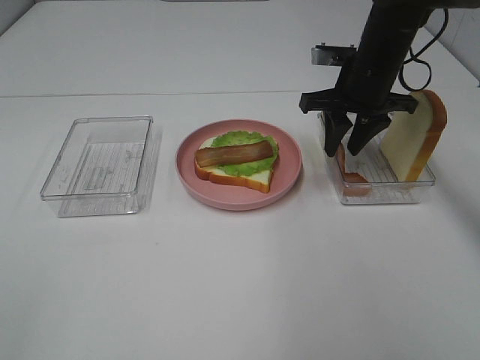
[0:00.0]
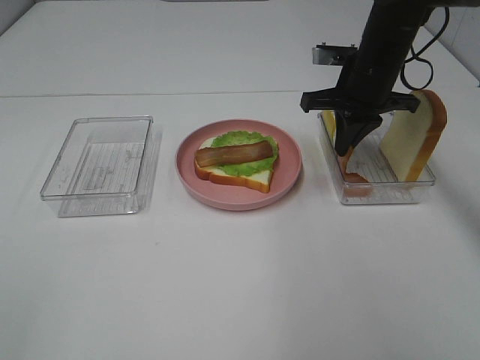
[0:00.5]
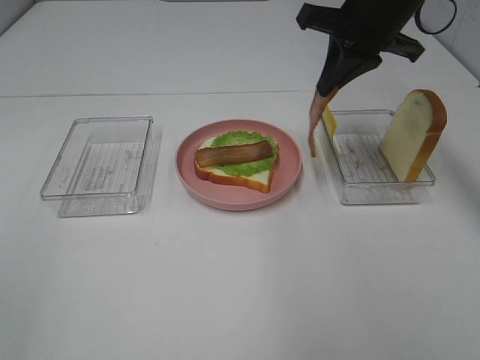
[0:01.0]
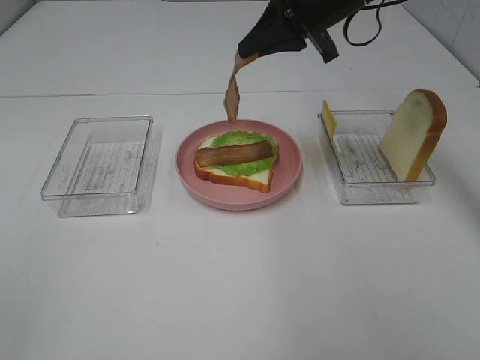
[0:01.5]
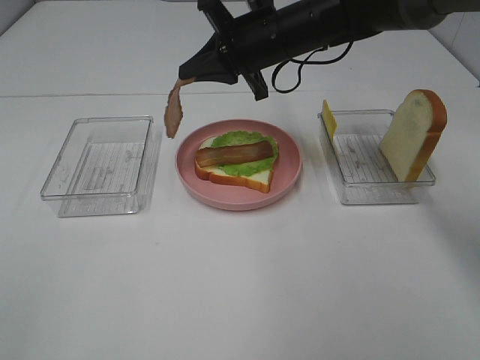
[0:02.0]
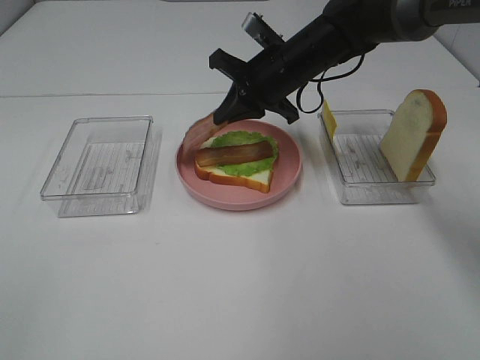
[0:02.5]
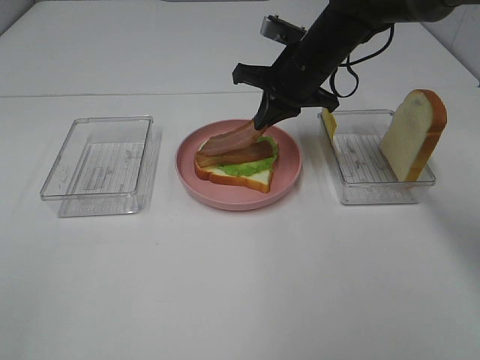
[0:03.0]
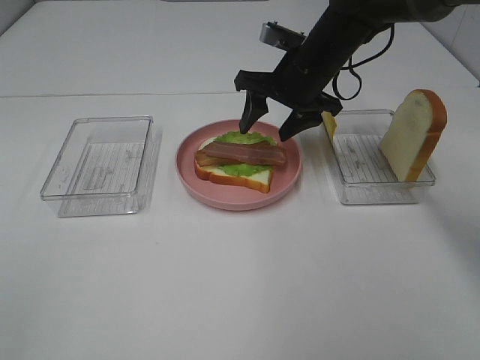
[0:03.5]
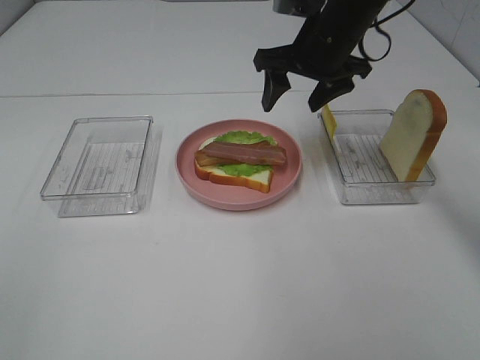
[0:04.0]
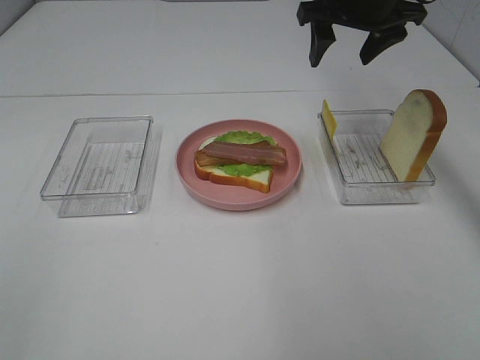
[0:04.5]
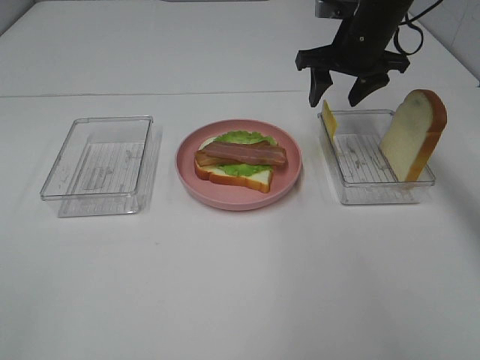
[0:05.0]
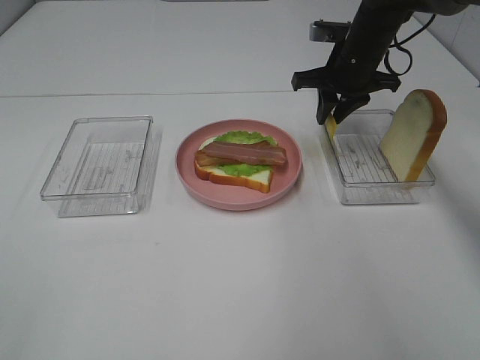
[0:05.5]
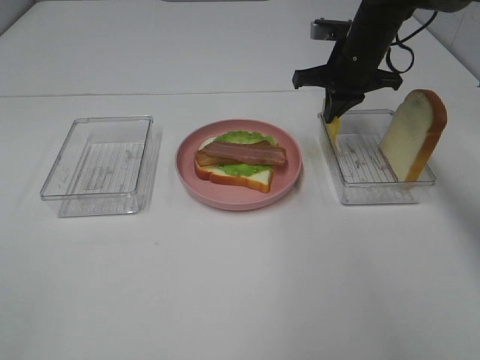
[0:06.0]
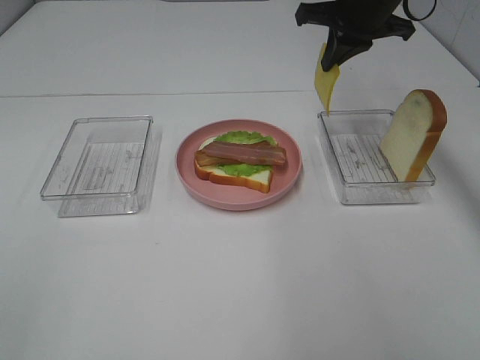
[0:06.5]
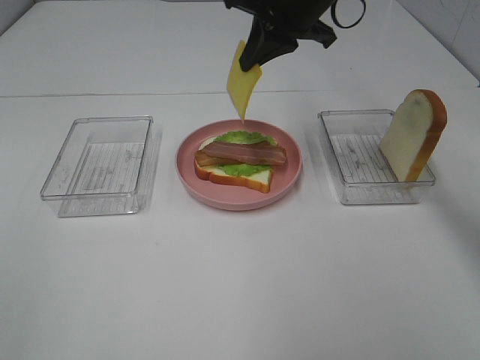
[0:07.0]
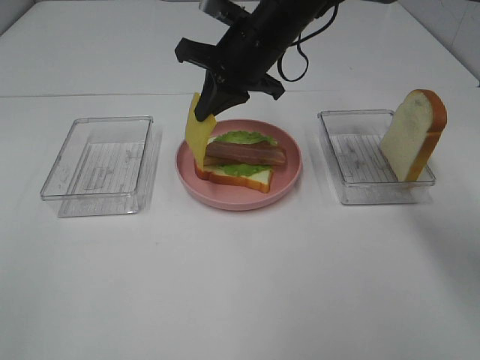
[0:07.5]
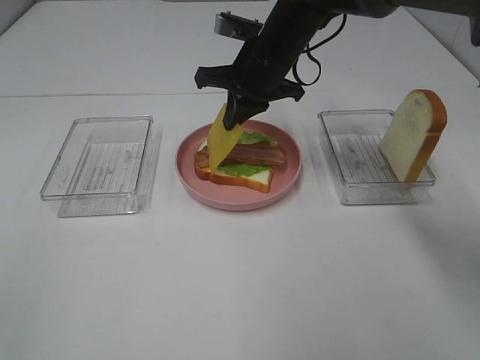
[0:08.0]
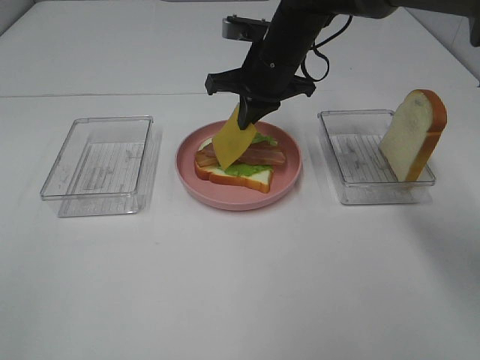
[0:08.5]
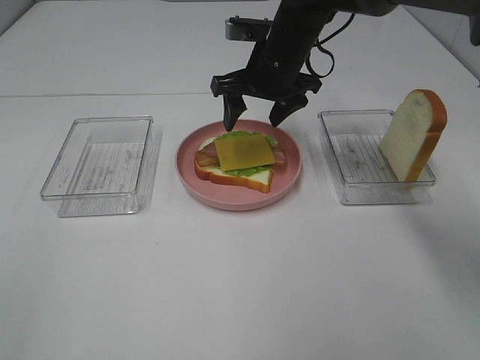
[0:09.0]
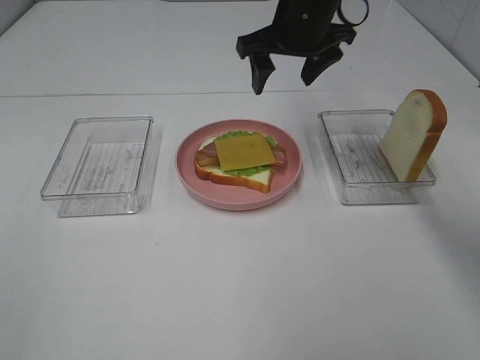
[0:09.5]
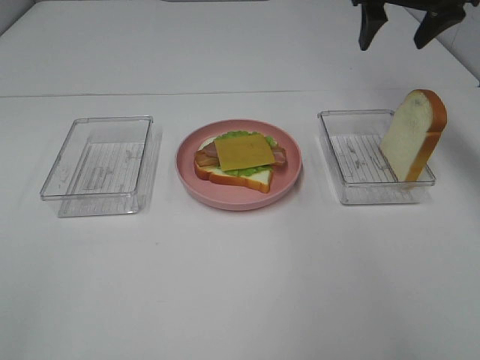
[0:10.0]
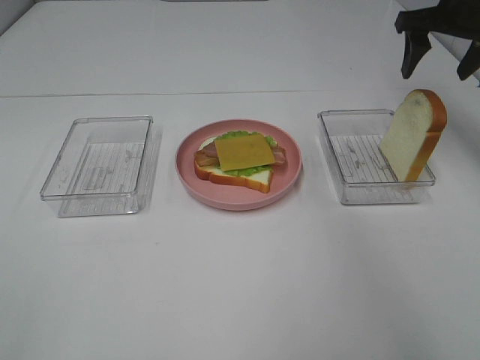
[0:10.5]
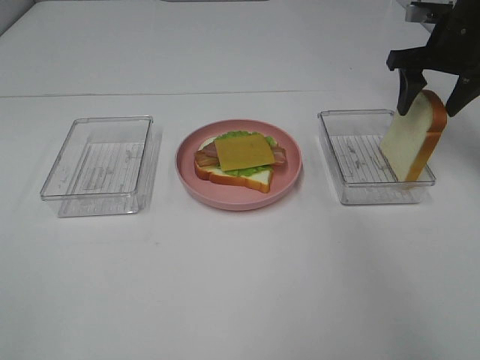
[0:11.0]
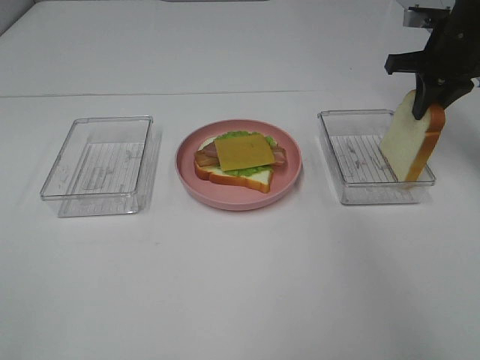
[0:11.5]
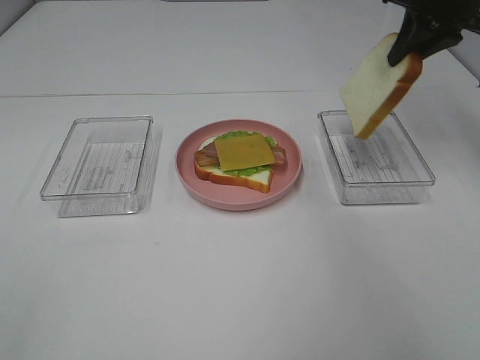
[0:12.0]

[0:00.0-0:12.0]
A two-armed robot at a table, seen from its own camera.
Task of the whole recording: Make sandwiches.
Step, 0:00.5 to 0:03.5: Right hand:place bacon on bacon.
Step, 0:04.0 to 0:05.5: Right hand:grab the cheese slice.
Step, 0:06.0 to 0:09.0: Right hand:place the cheese slice on top of the bacon.
Step, 0:09.5 to 0:11.5: Right hand:grab the bread slice.
0:00.0 to 0:02.0: The right gripper shifts some 10 cm to the left, and closes its fingers.
0:02.0 to 0:04.0: The right gripper moves to the right, approximately 5 cm, and opens.
0:04.0 to 0:06.0: The right gripper shifts approximately 5 cm forward and to the right, and closes.
0:06.0 to 0:08.0: The right gripper travels to the left by roughly 10 cm.
0:08.0 to 0:10.0: The right gripper travels to the right and upward by roughly 20 cm, and opens its fingers.
0:10.0 to 0:12.0: The right gripper travels downward and back again, approximately 10 cm each way, and closes its fingers.

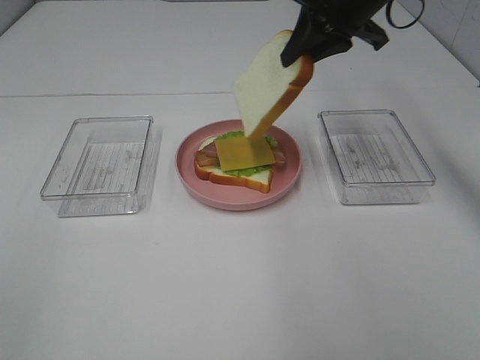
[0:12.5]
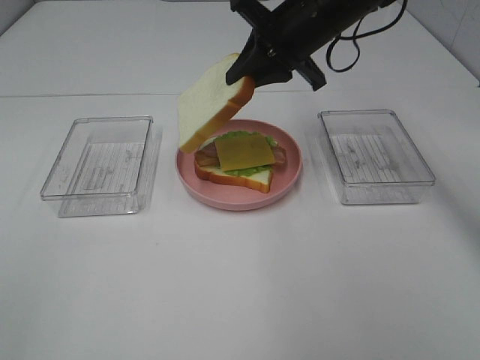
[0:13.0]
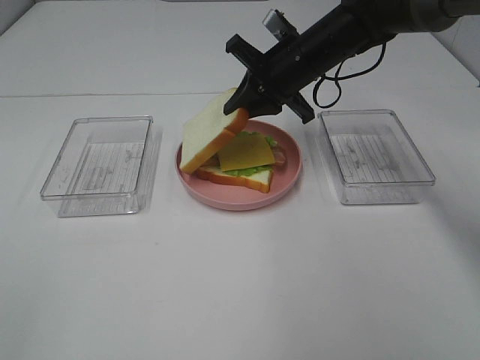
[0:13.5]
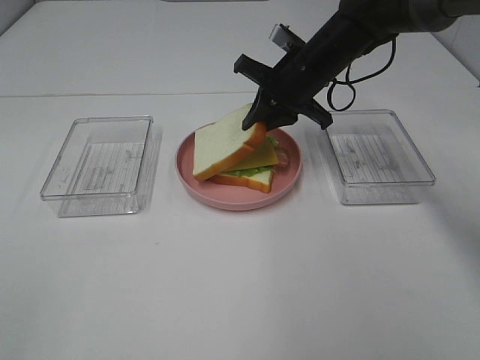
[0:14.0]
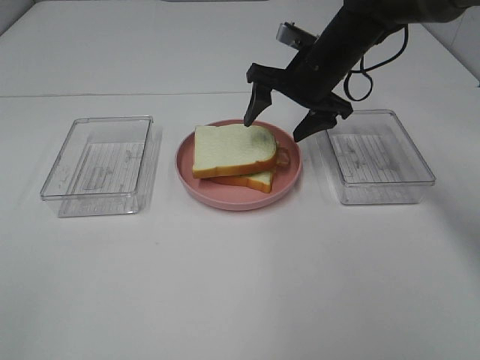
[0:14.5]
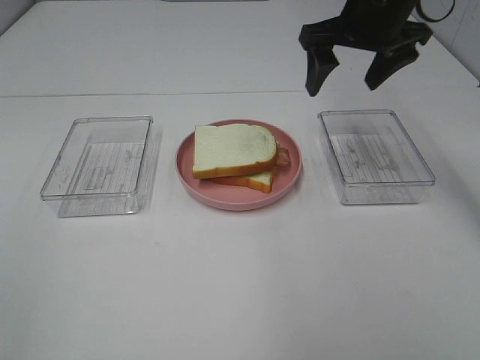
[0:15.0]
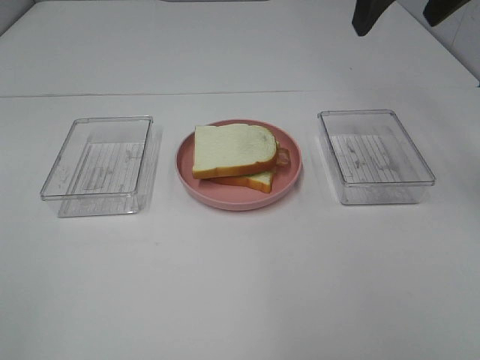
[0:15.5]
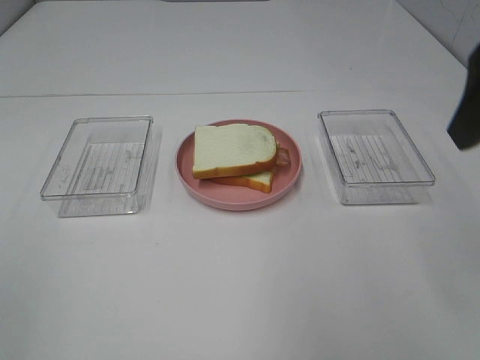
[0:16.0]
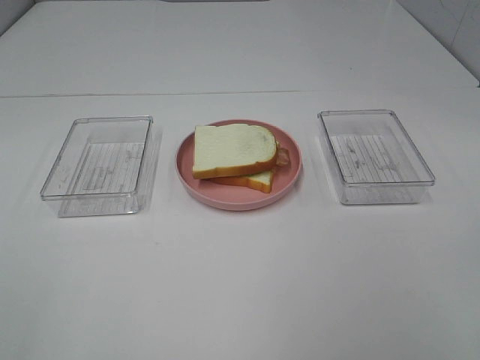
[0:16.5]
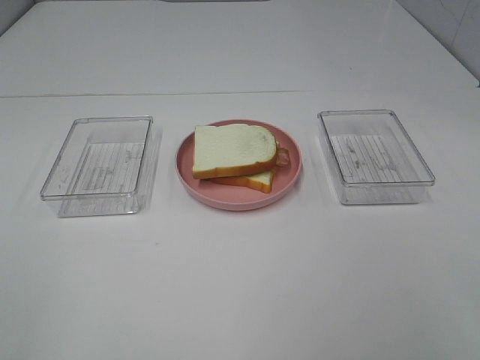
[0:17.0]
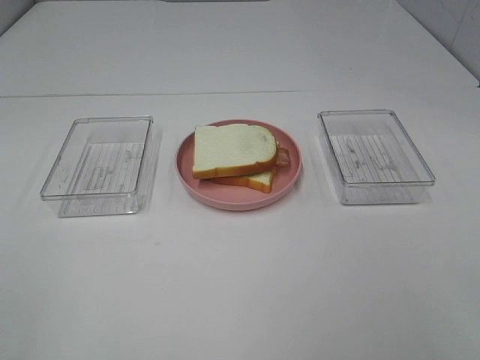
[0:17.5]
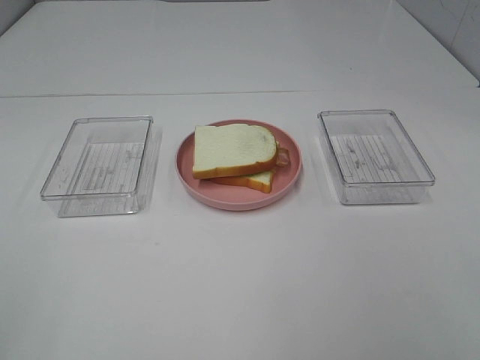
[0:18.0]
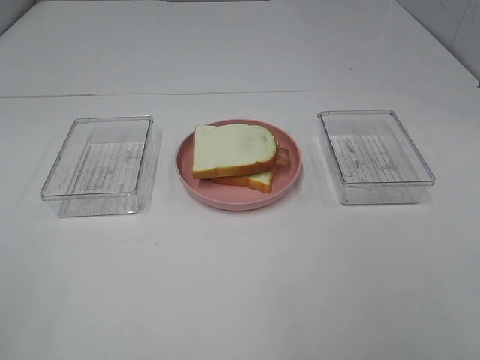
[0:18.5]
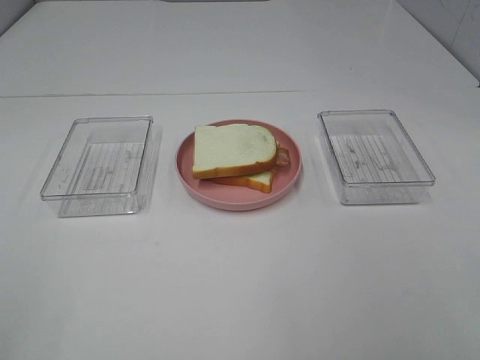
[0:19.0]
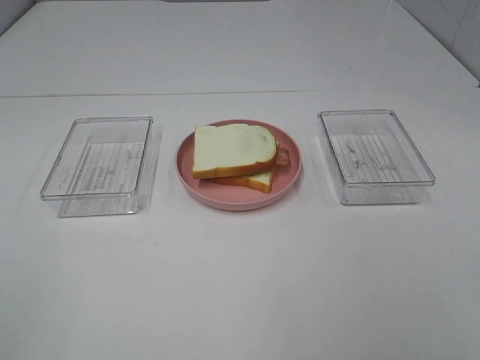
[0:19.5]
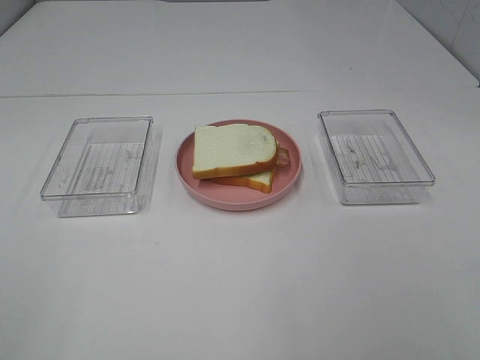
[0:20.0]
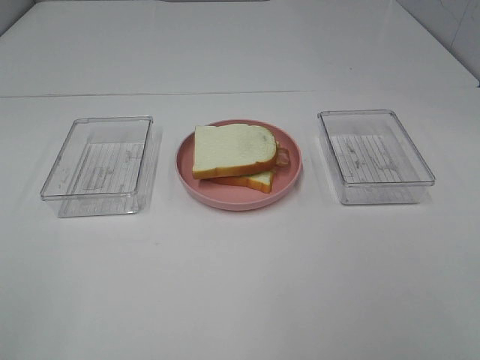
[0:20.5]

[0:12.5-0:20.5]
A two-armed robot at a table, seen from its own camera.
Task of the whole recording: Make sandwiches.
Step, 0:12.5 to 0:14.5: Right hand:place the bread slice on the cheese slice.
0:12.5 to 0:14.5: The right gripper goes about 10 cm downward, and opens its fingers.
0:14.5 to 0:16.5: The right gripper travels backward and to the right by about 40 cm.

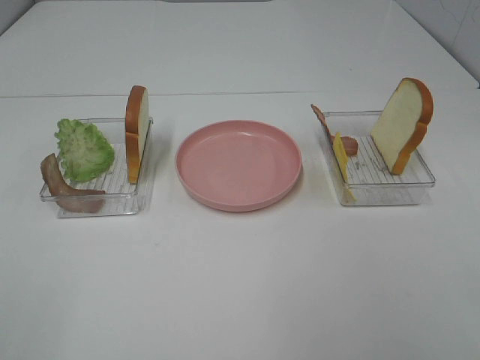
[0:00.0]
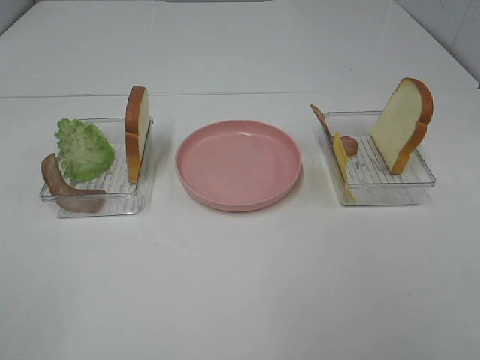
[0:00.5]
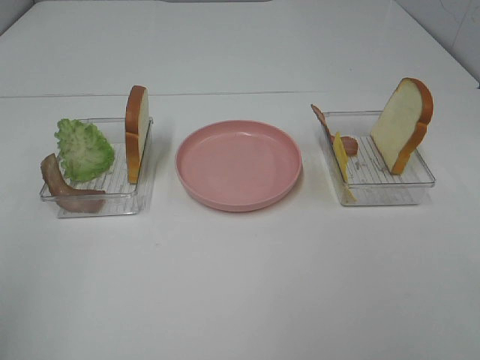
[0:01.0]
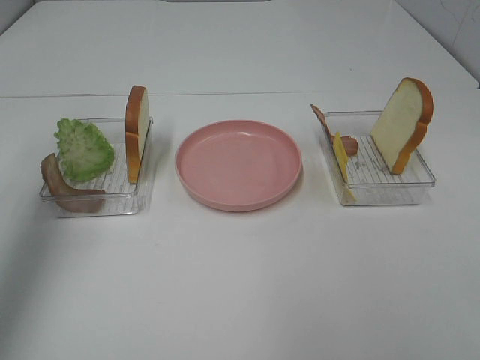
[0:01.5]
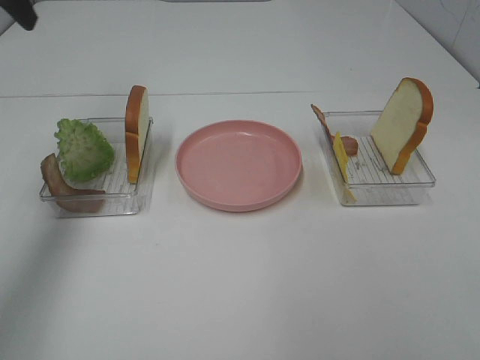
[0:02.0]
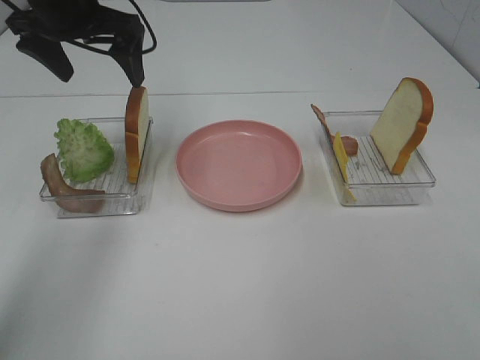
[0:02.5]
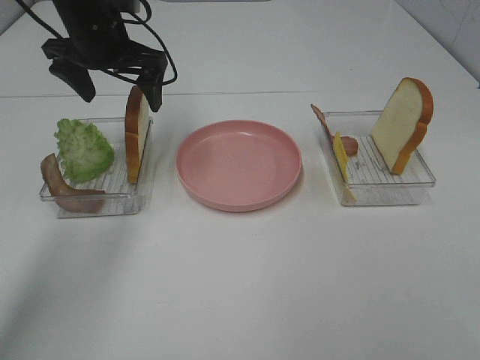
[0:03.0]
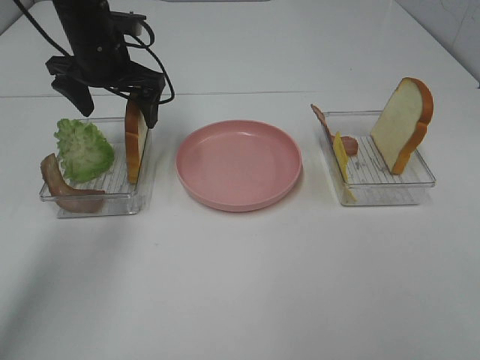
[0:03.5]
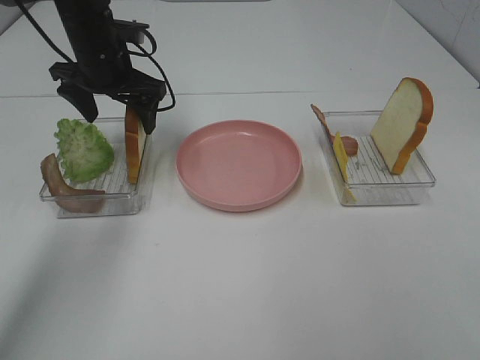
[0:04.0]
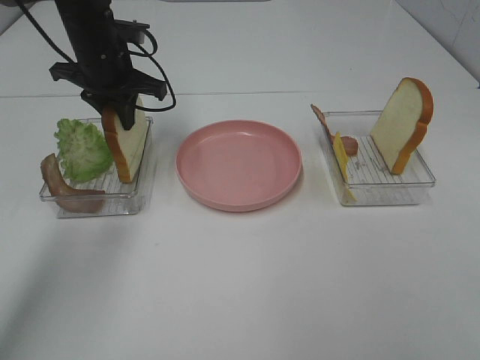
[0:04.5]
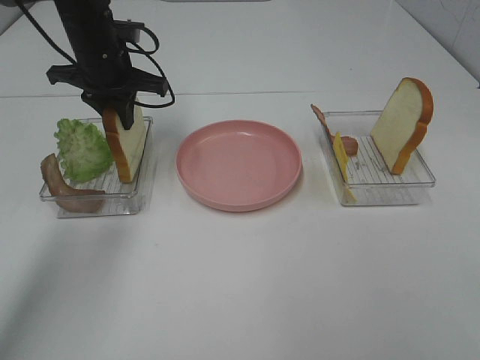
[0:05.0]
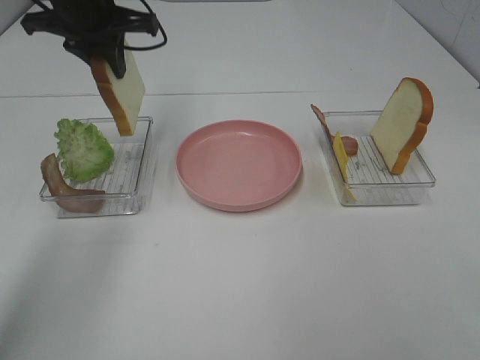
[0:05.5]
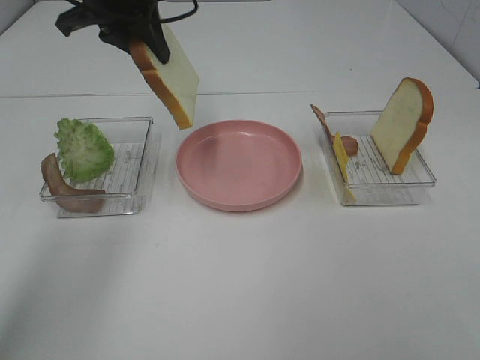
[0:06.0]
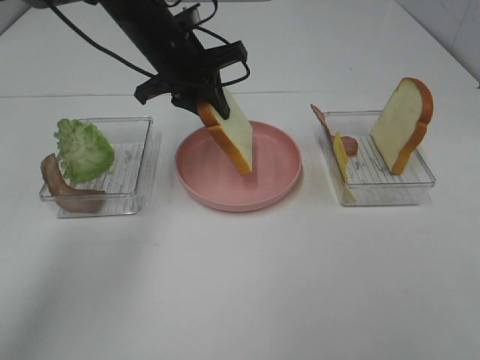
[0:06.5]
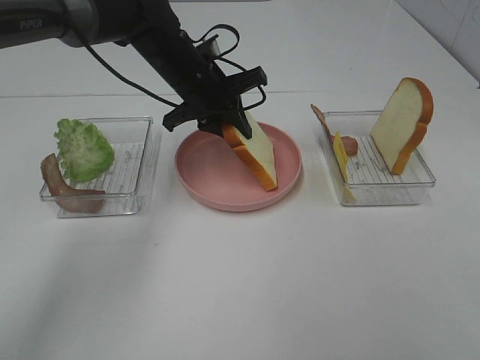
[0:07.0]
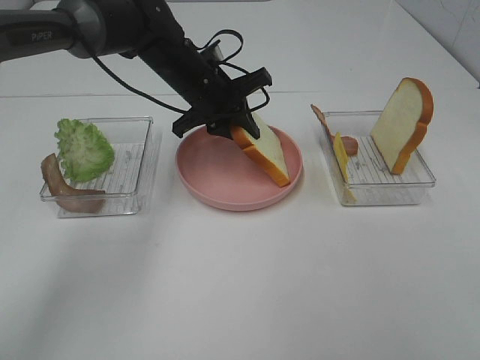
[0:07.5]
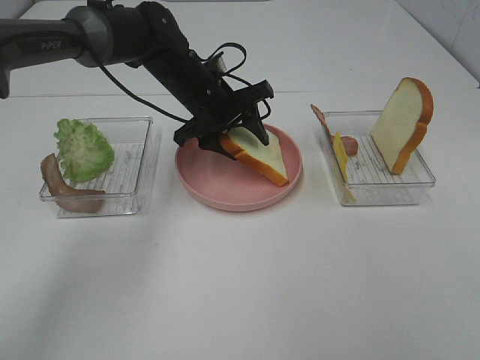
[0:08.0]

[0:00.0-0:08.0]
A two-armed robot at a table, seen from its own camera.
Task of the whole recording: Make sandwiches.
Step, 0:00.0 to 0:04.5: Left hand:grab the bread slice.
0:00.0 to 0:02.0: The left gripper moves forward, about 40 cm.
0:02.0 to 0:04.0: The left gripper heads downward, to the right and forward, covering roughly 20 cm.
0:04.0 to 0:06.0: The left gripper goes roughly 10 cm upward, and closes up.
0:06.0 to 0:08.0: The left gripper moves downward and to the right, approximately 20 cm.
